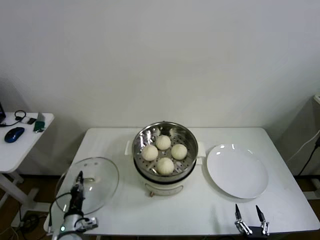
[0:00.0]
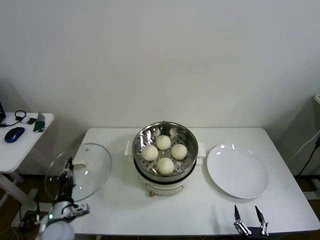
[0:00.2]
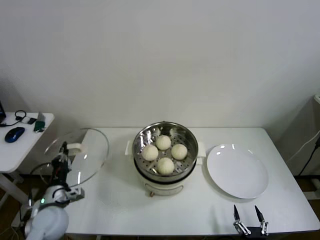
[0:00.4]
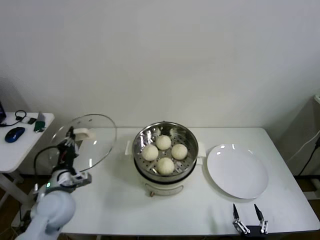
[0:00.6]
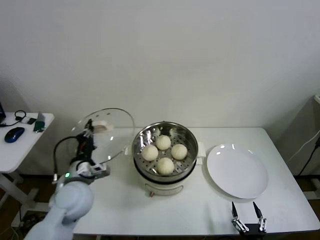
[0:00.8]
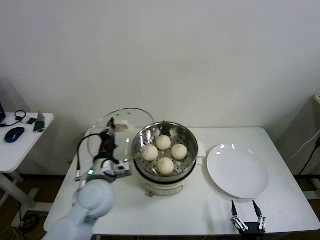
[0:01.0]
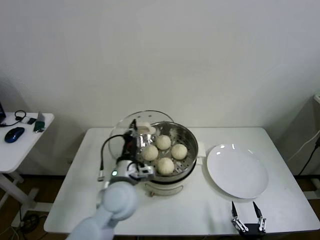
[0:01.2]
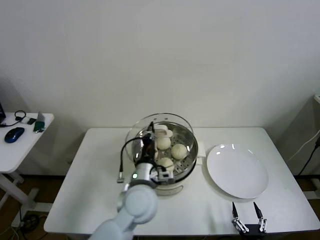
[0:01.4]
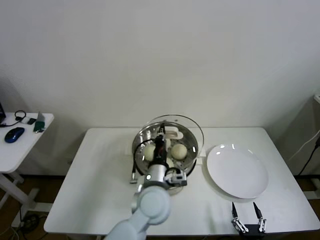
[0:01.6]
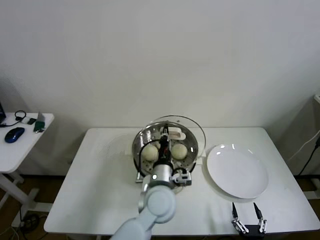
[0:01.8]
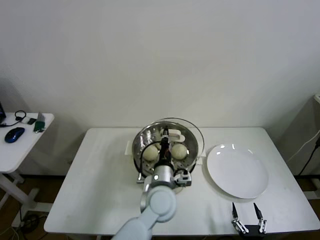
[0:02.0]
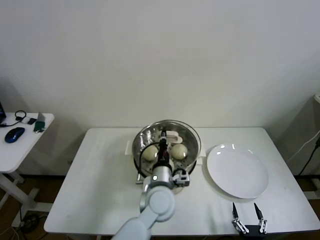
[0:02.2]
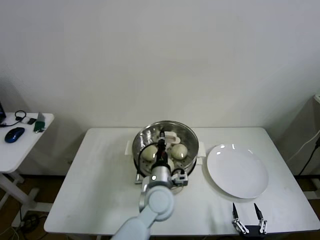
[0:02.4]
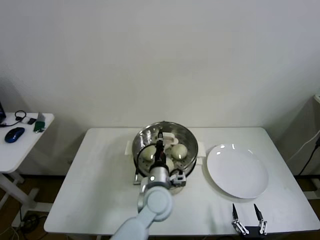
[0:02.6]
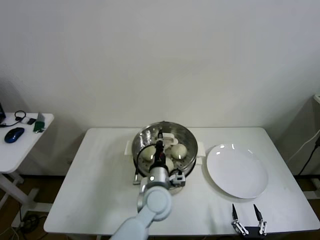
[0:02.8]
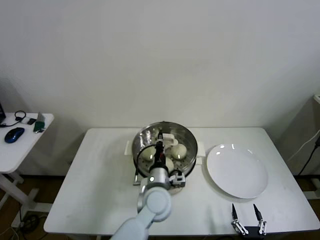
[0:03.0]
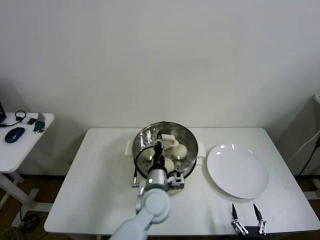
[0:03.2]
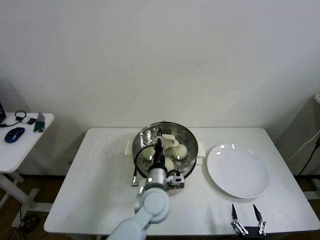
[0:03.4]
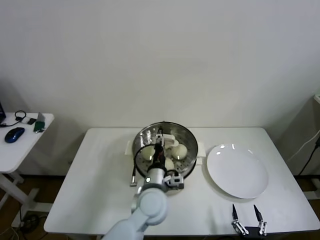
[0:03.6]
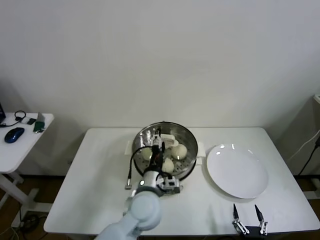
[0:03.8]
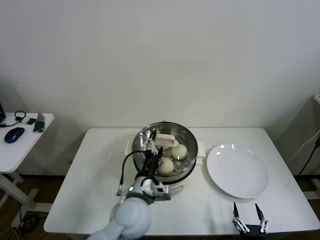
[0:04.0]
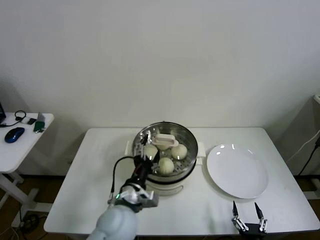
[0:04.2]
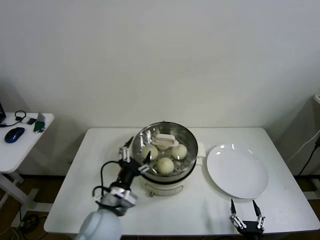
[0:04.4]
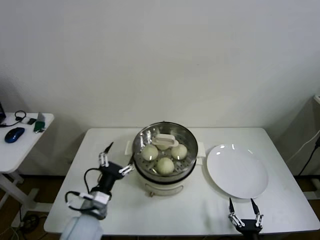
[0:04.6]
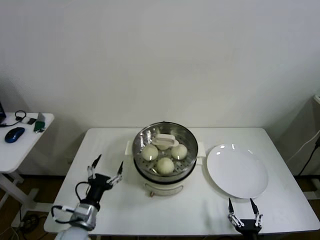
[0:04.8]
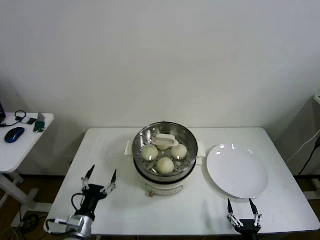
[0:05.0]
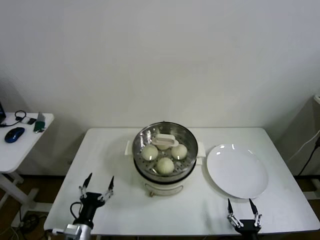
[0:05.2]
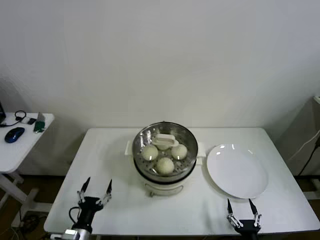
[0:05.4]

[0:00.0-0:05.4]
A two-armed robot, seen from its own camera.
Step, 0:00.0 to 0:03.2: Place the pot lid on the steamer with left gripper.
0:00.0 to 0:01.4: The left gripper heads to the right and upward, covering some 35 cm.
0:01.4 to 0:02.8: The left gripper heads downward and to the right, covering roughly 10 cm.
0:02.8 to 0:04.0: The left gripper ends up some 5 cm from where it was, and opens its fingers.
0:04.0 to 0:05.4: The left gripper shifts roughly 30 cm to the left, downward and backward.
